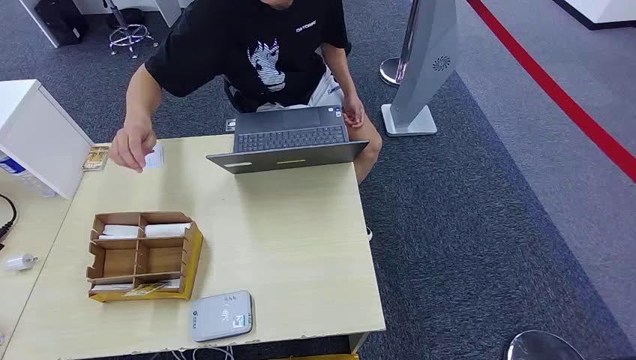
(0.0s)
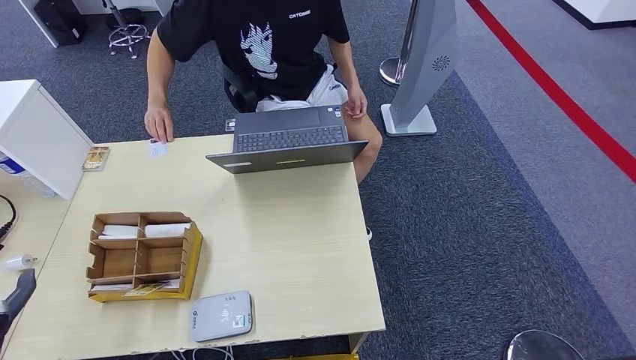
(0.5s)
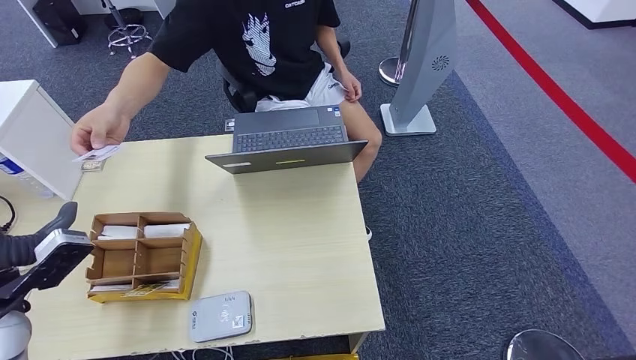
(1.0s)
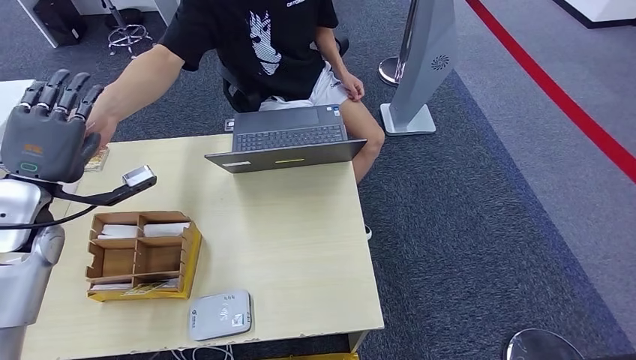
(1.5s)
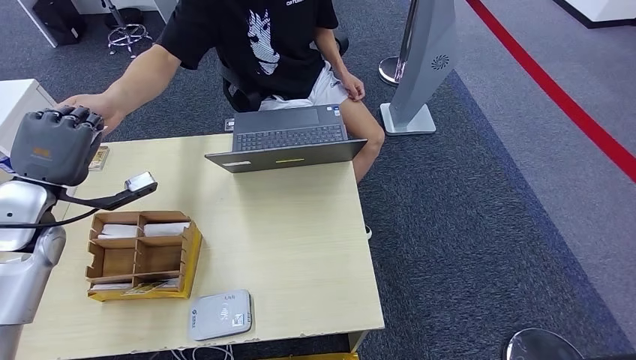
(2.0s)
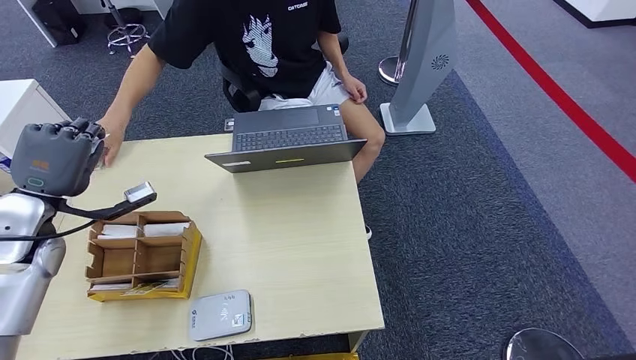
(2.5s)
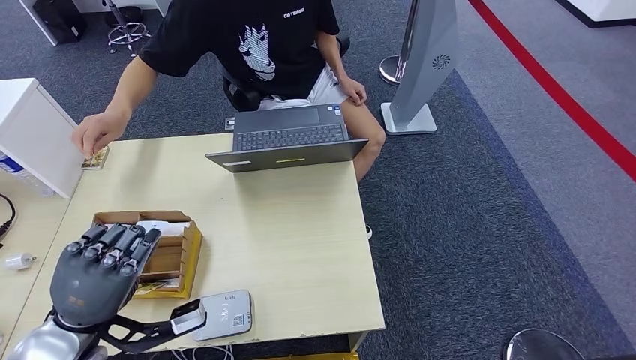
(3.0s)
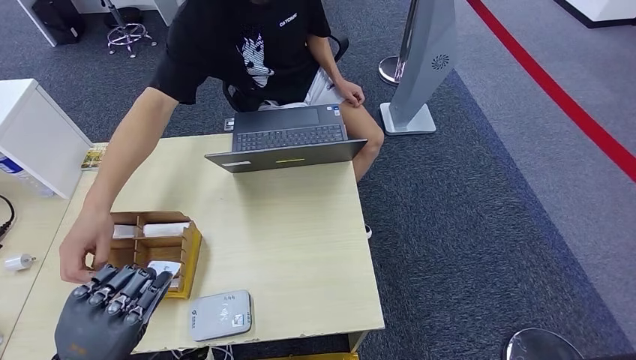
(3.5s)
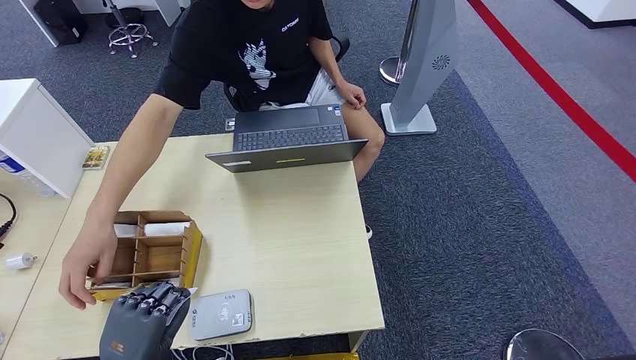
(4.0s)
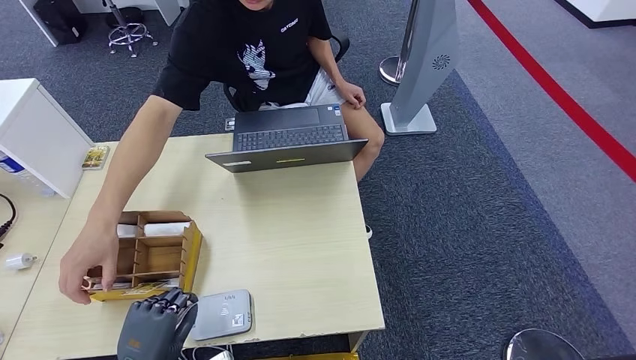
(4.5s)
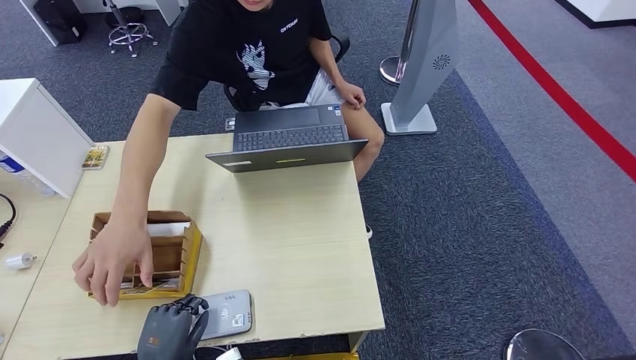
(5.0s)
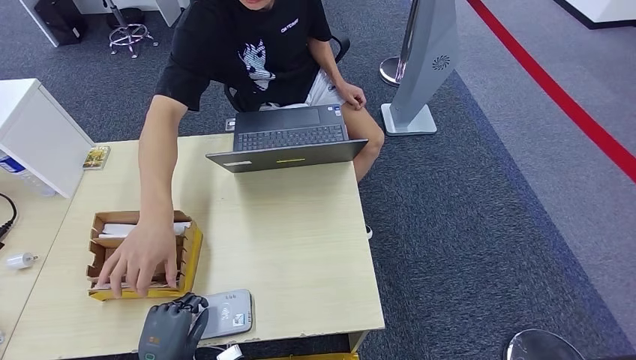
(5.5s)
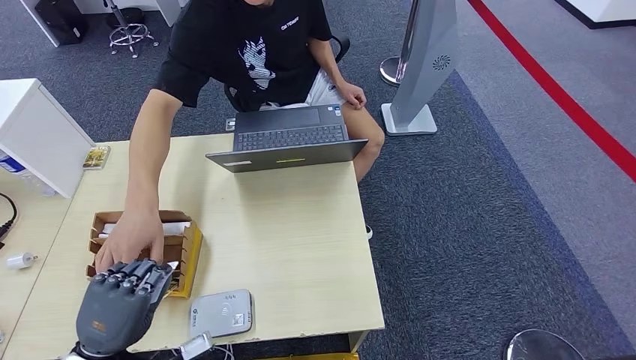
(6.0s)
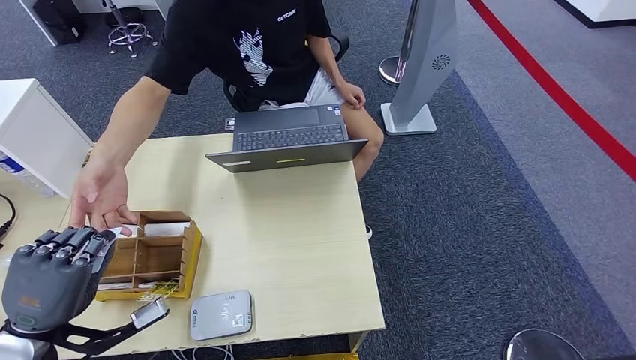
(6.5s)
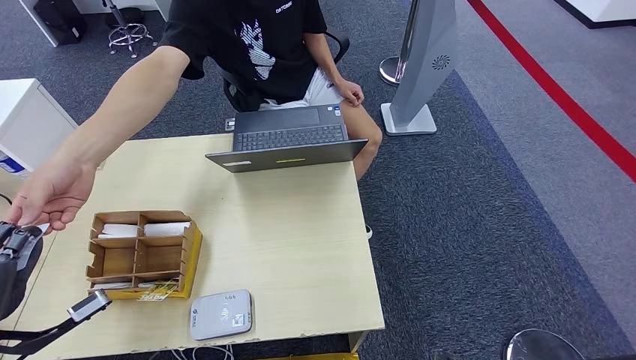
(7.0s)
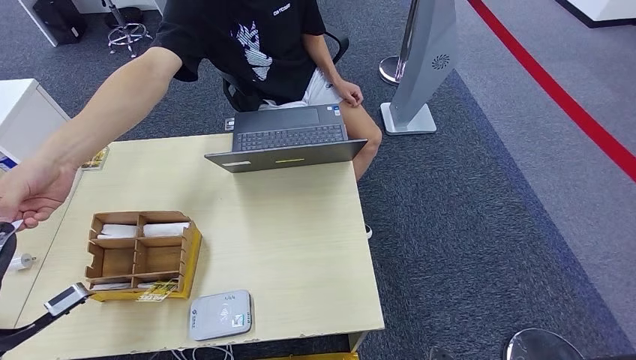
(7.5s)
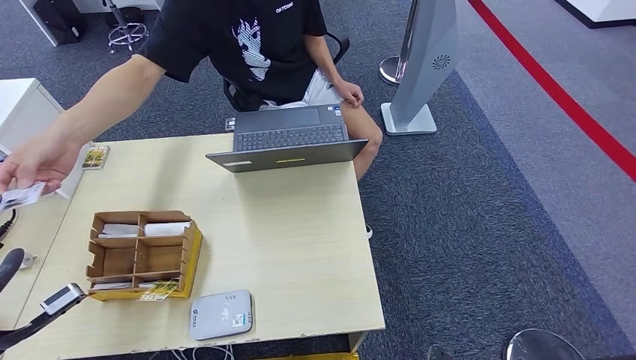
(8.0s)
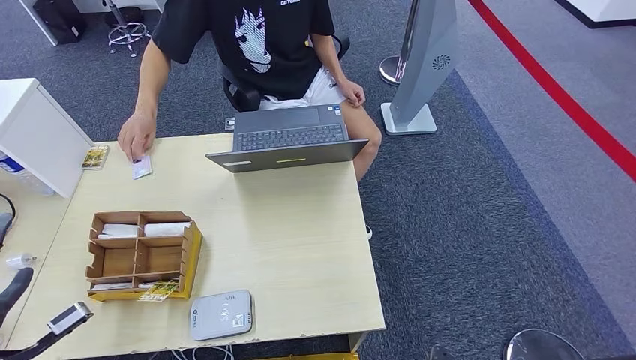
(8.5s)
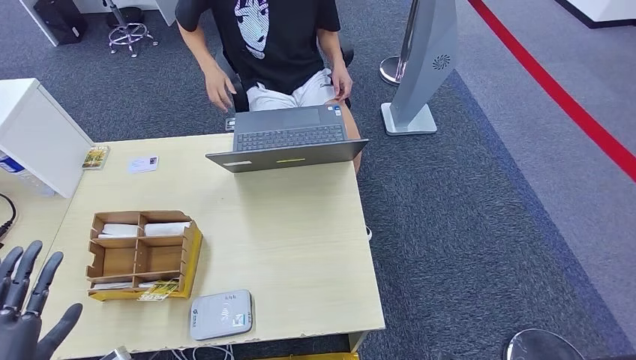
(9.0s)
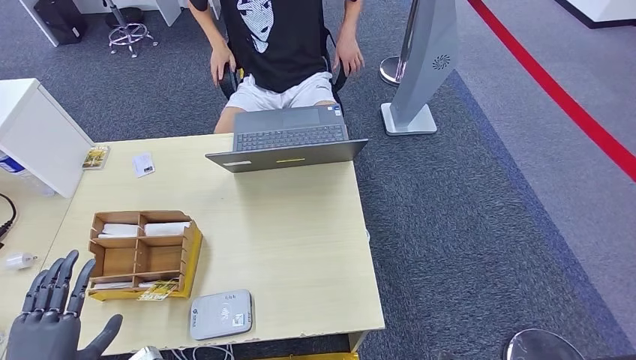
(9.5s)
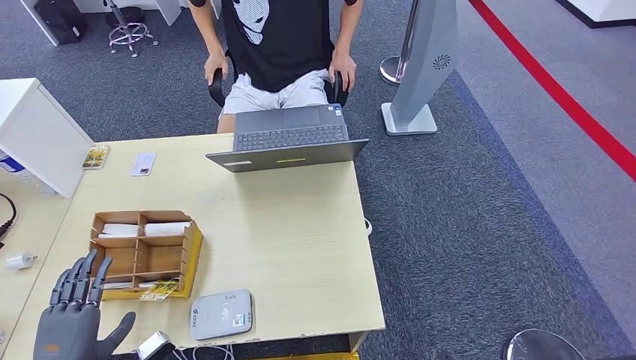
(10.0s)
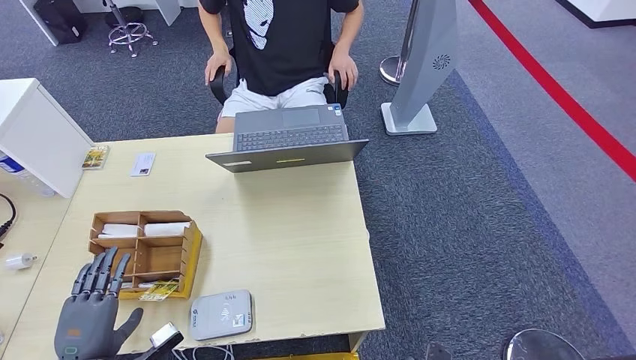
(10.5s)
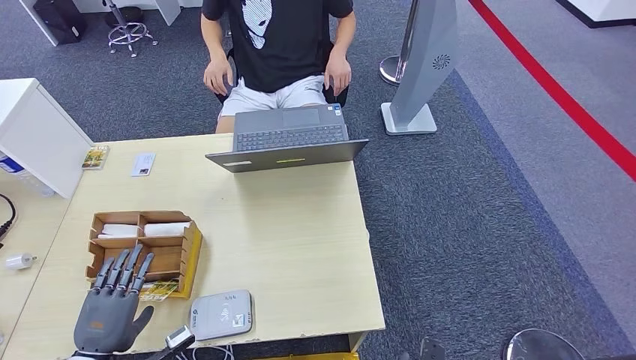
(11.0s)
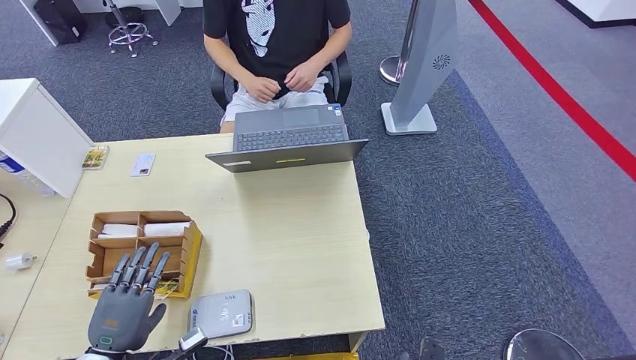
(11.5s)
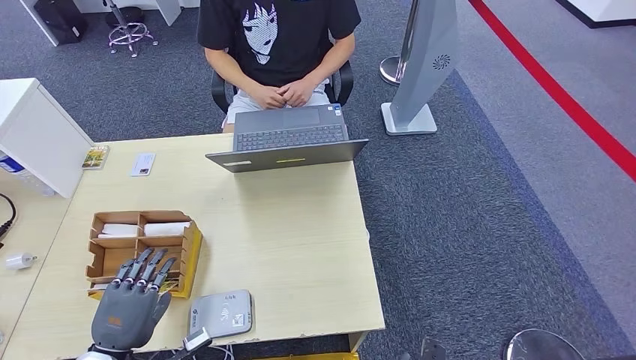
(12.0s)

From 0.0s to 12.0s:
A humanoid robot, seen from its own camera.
Step, from 0.0s to 2.0s: Take the ID card from the person's hand.
Step, from 2.5s to 5.0s: Place the ID card on the card reader.
Step, from 5.5s to 8.0s: Hand the ID card to the person.
From 2.0s to 4.0s: The left hand moves backward and downward, roughly 30 cm.
From 4.0s to 6.0s: The left hand reaches about 10 cm downward, then returns.
From 6.0s to 8.0s: The left hand is displaced to the left and upward by some 20 cm.
From 8.0s to 10.0s: The left hand shifts about 15 cm downward, to the right and backward.
From 10.0s to 12.0s: The left hand moves approximately 5 cm.

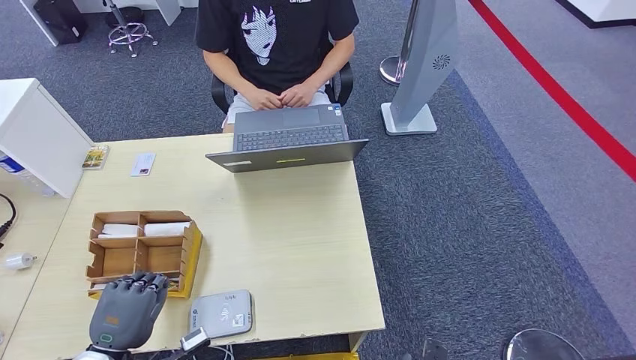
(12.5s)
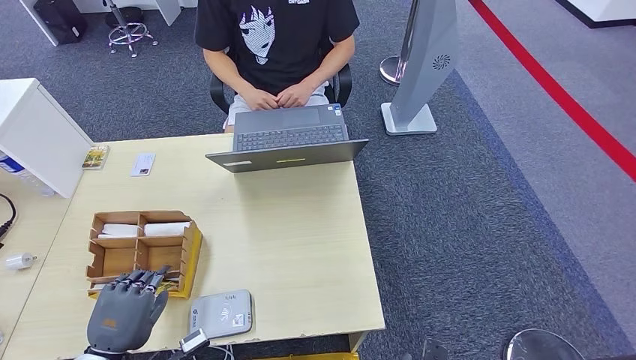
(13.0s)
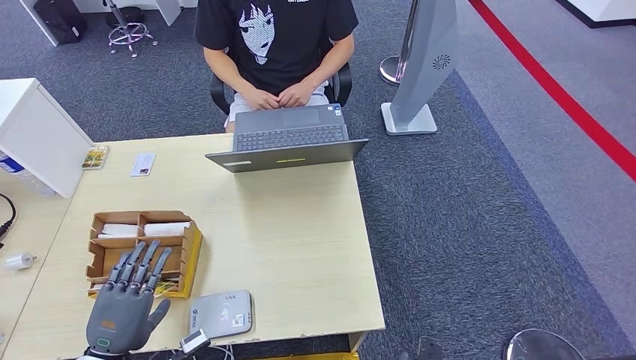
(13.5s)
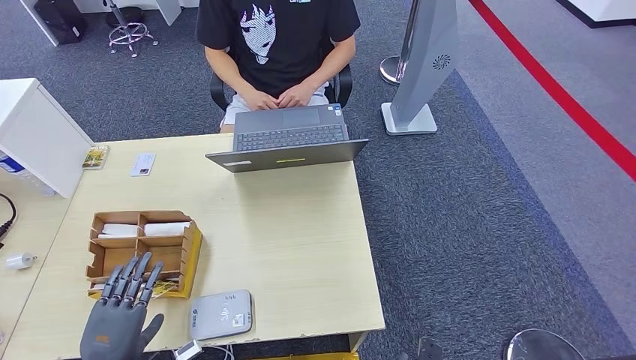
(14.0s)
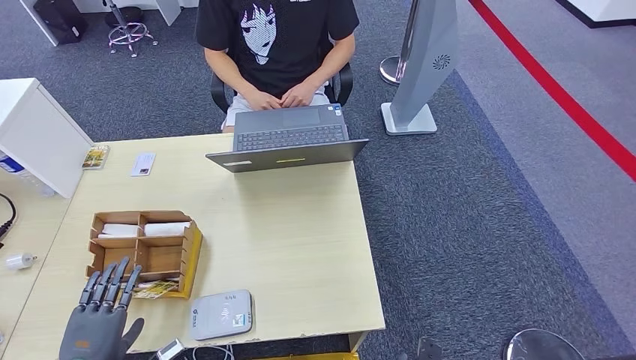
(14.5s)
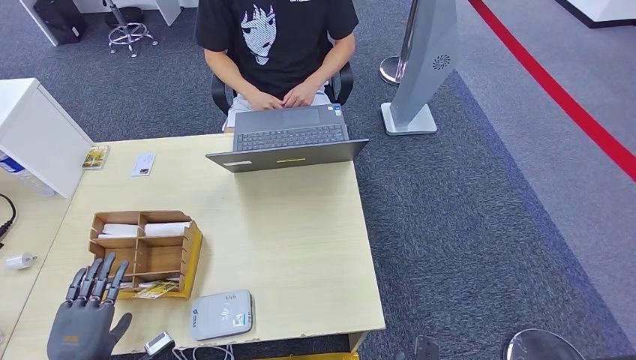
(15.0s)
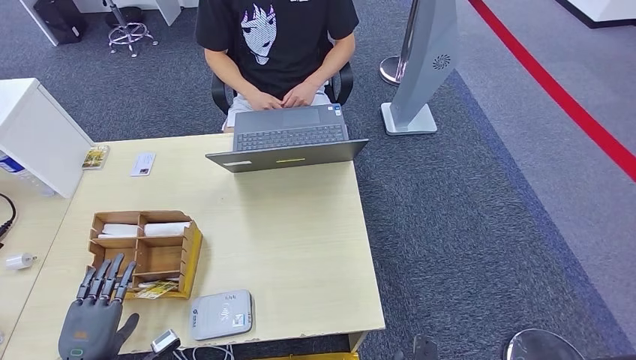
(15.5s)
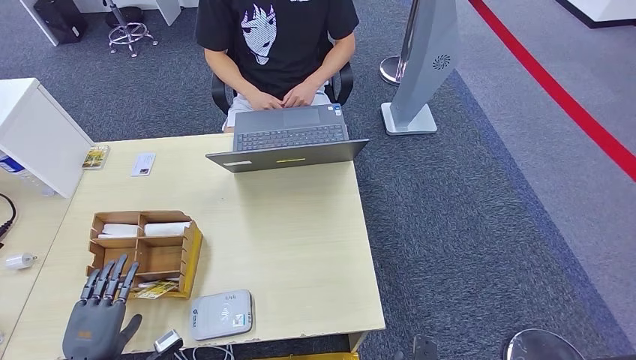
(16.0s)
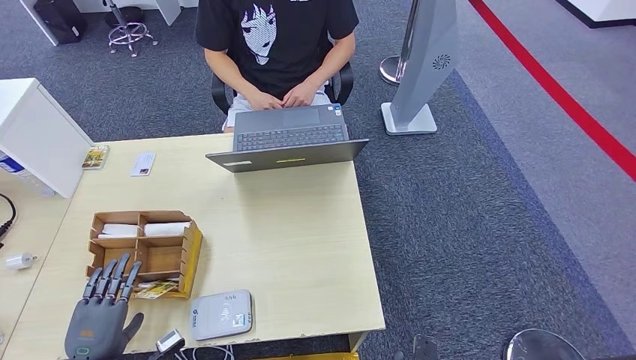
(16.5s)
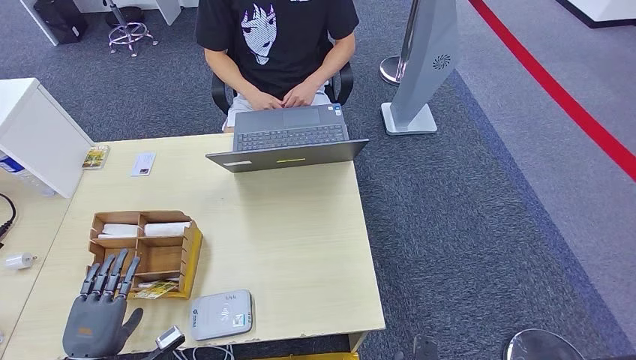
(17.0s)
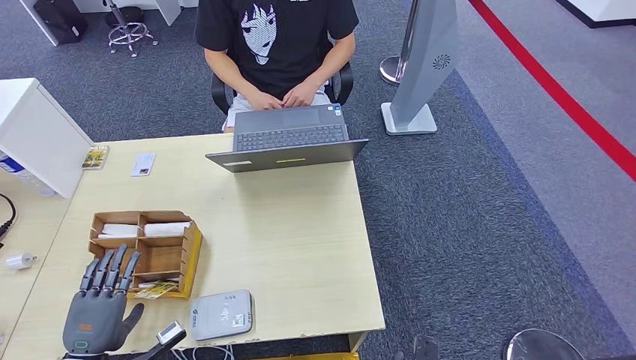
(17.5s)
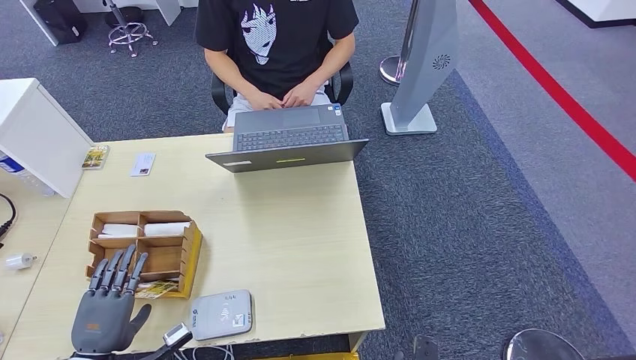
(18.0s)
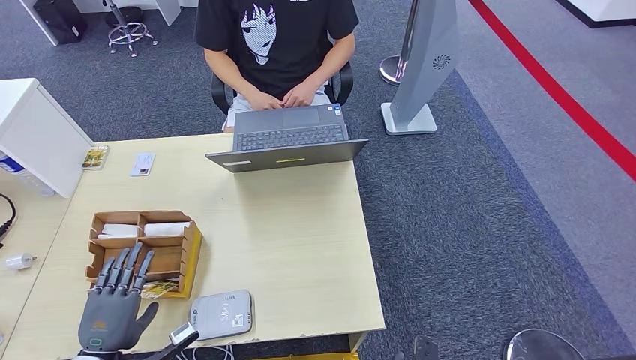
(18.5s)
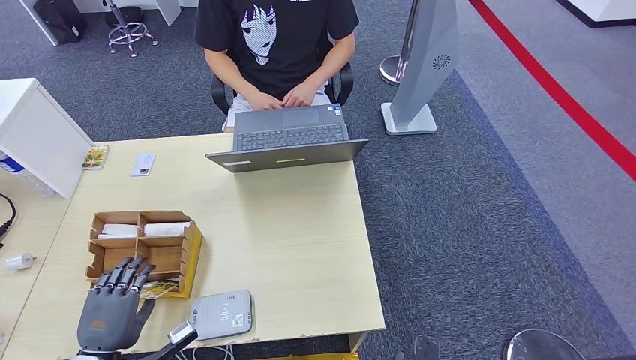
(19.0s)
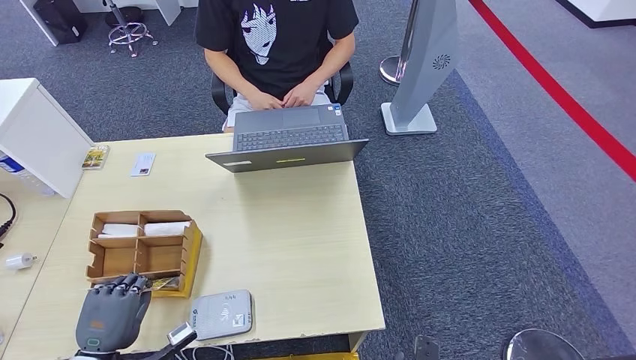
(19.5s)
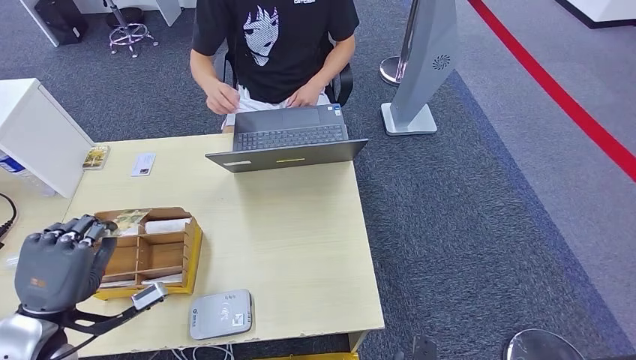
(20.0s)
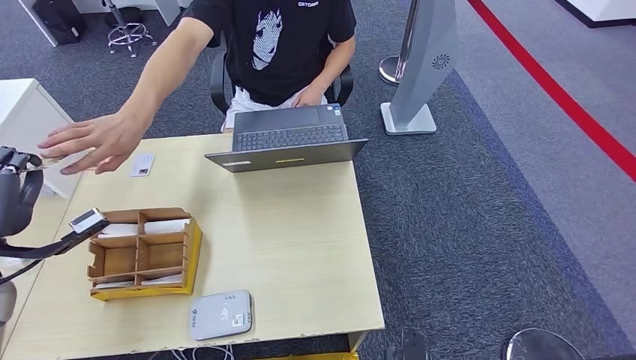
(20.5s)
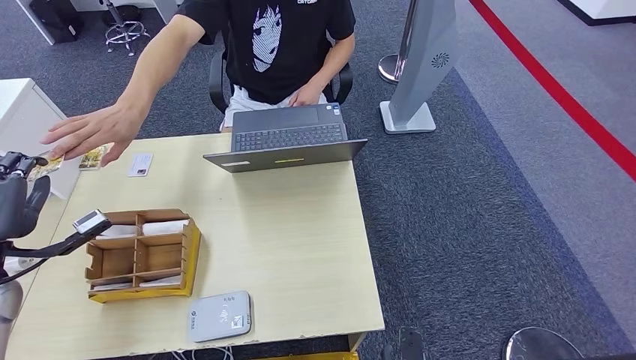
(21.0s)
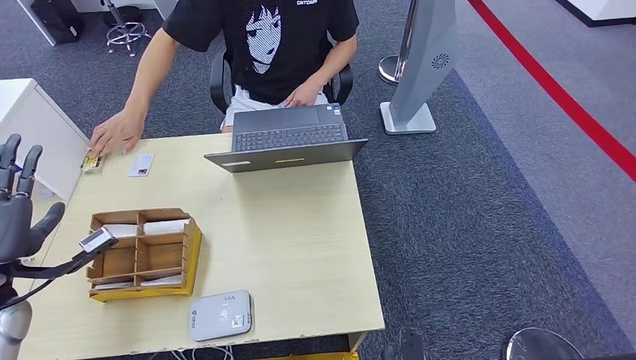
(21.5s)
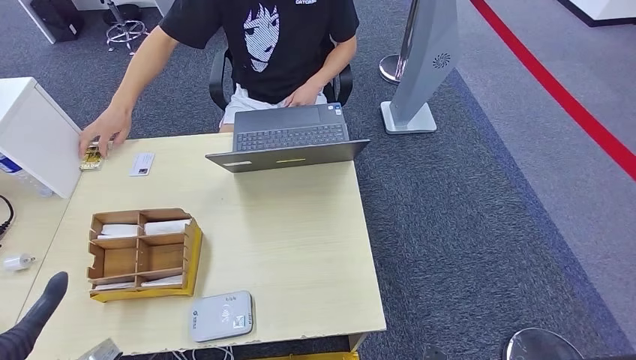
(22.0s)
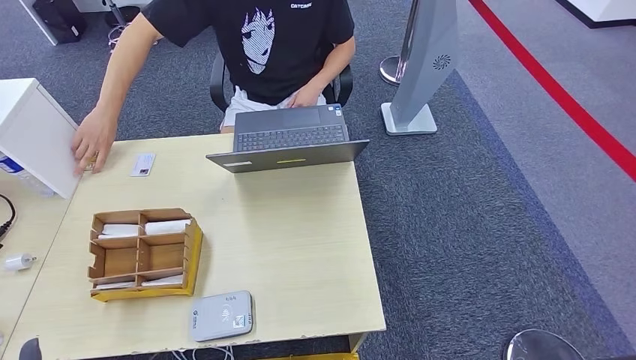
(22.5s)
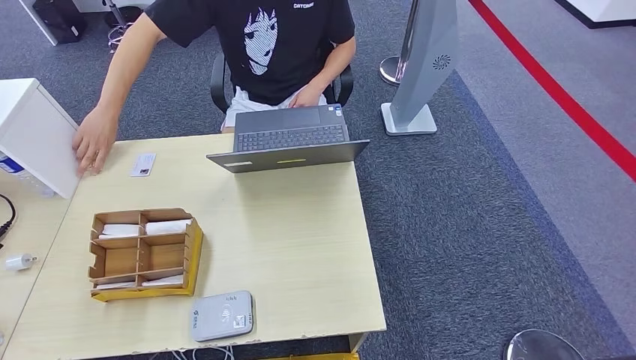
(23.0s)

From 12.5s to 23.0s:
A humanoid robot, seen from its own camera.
Step, from 12.5s to 20.0s: Pick up the room key from the key card box.
Step, from 20.5s to 23.0s: Hand the room key to the person.
From 12.5s to 14.5s: The left hand ends up approximately 5 cm from where it was.
From 14.5s to 19.0s: There are only small adjustments of the hands.
From 19.0s to 21.0s: The left hand goes roughly 25 cm upward, forward and to the left.
From 21.0s to 23.0s: The right hand ends up some 5 cm from where it was. Meanwhile the left hand is displaced backward and downward by about 30 cm.
